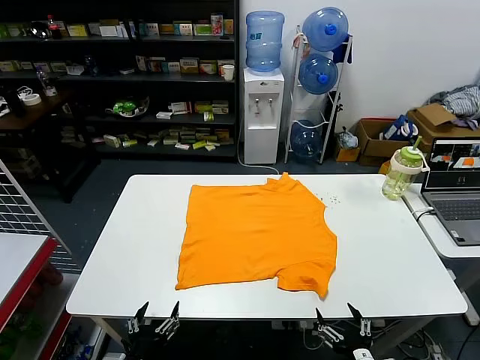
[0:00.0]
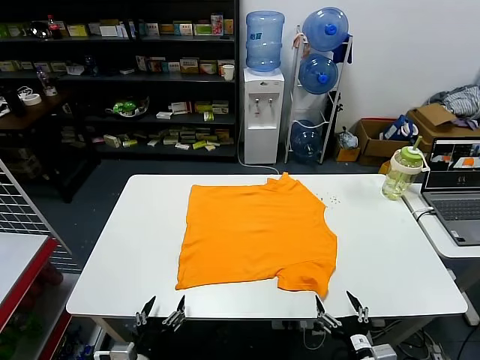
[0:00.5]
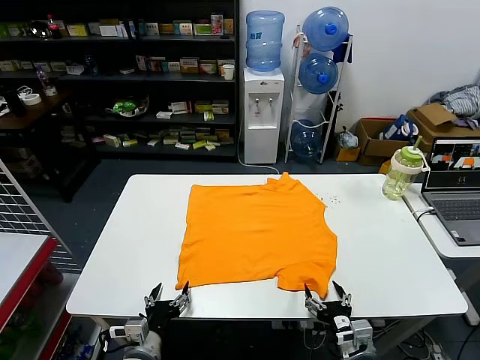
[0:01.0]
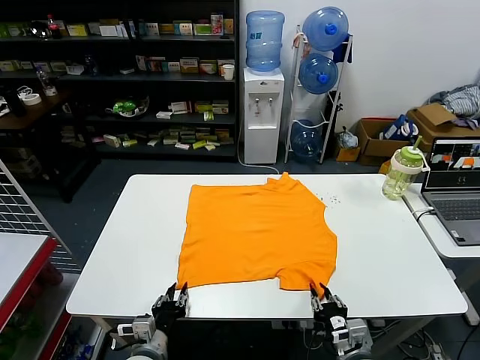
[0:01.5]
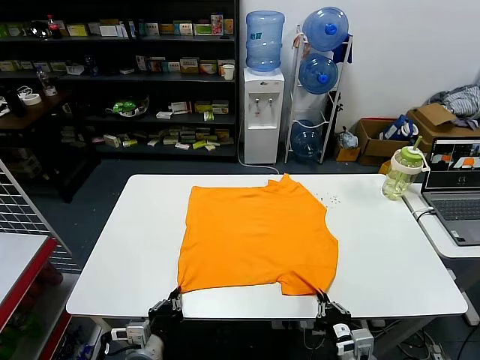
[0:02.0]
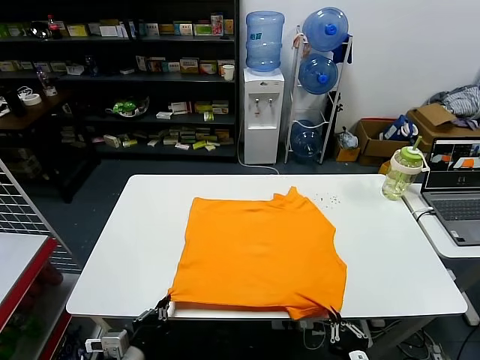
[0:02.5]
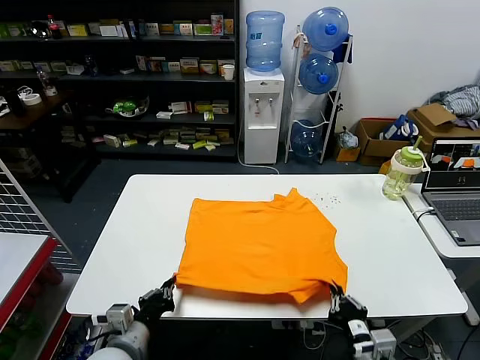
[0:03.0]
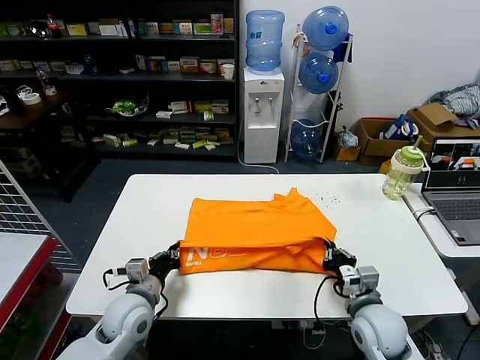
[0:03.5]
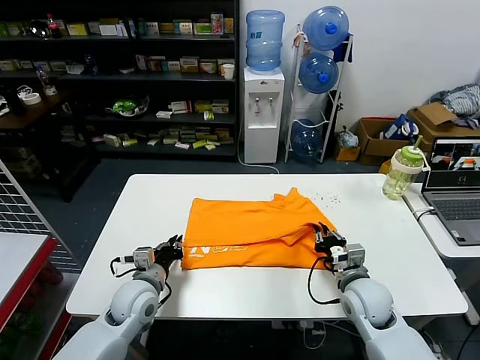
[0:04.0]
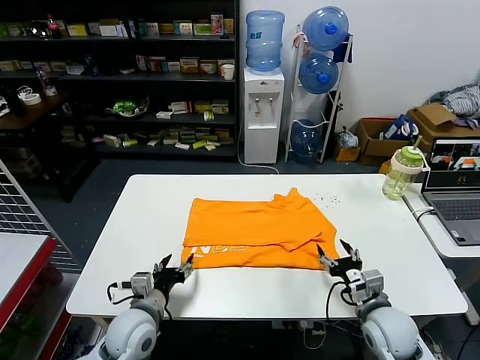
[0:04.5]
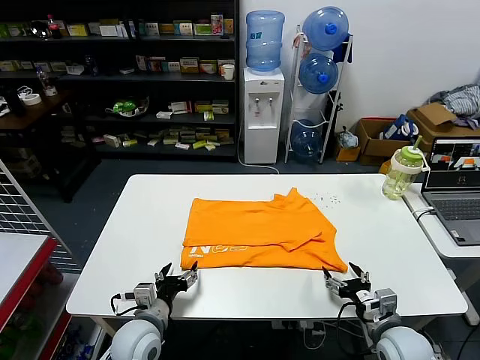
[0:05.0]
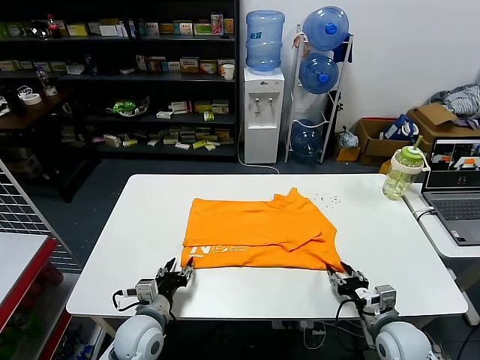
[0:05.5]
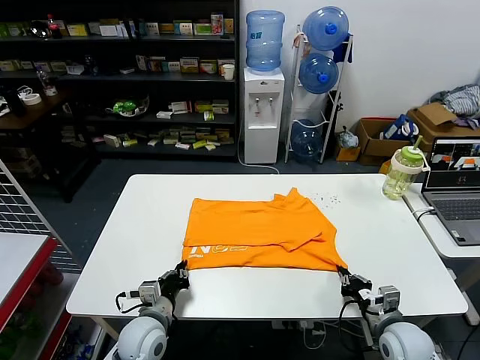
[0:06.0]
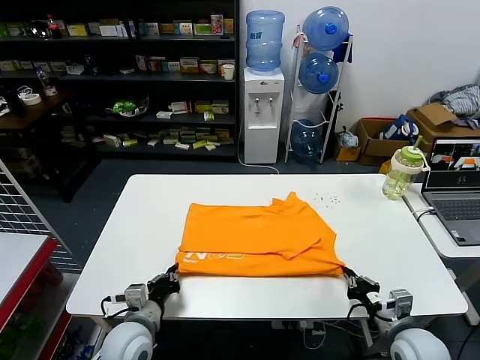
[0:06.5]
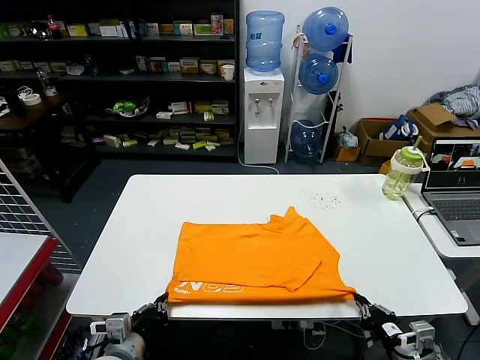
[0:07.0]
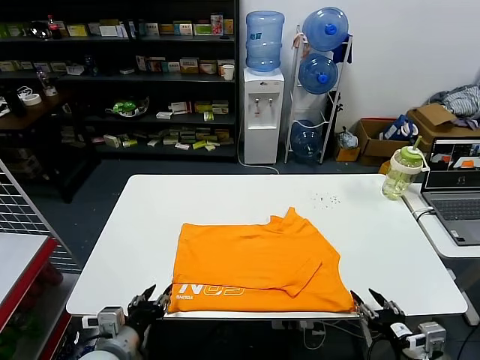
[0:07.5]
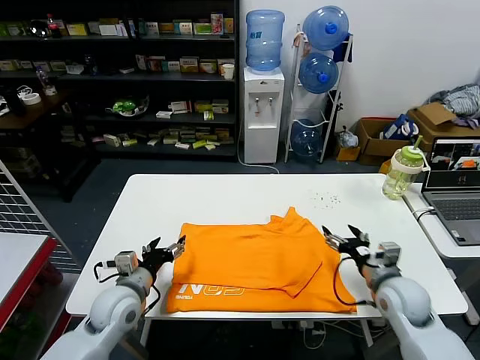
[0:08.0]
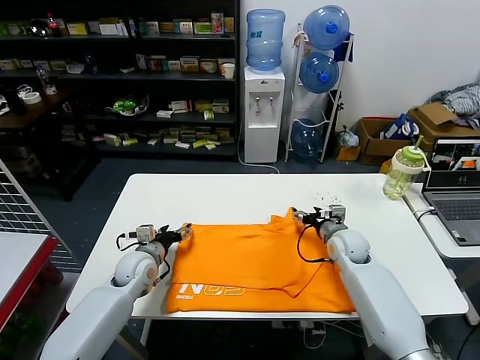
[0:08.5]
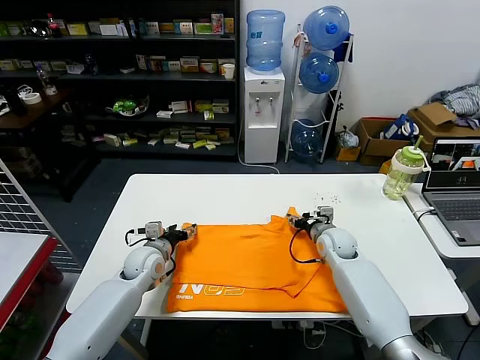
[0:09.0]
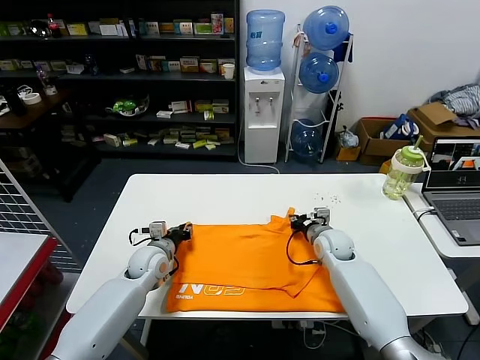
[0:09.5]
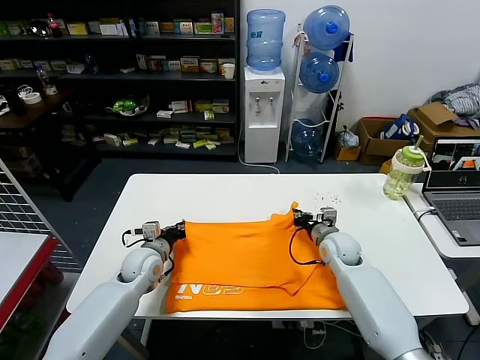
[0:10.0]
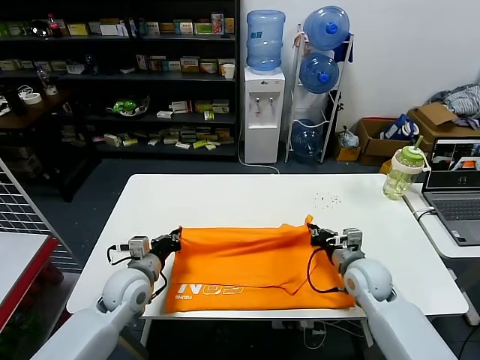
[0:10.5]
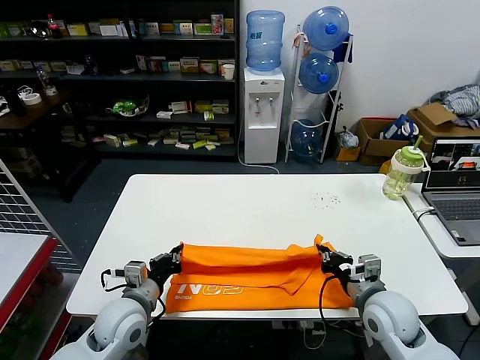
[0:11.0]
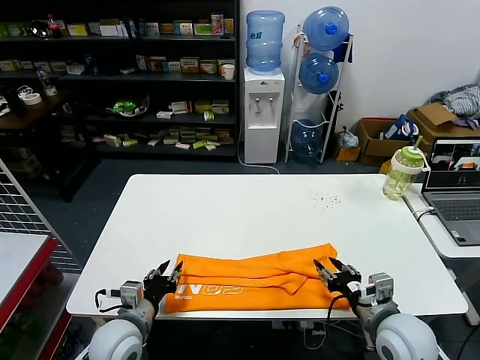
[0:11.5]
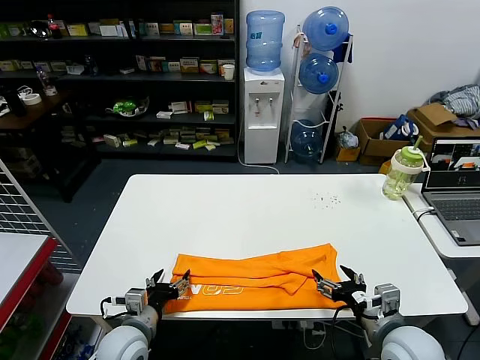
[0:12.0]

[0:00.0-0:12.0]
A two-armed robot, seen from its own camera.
Task of the whole recording: fold and organize the clothes.
Step, 0:00.0 to 0:01.5: use both grippers simultaneously to clamp the lower edge of the clothing fabric.
Step, 0:02.0 to 0:04.0: use both grippers to drag the lower edge of the fabric forward and fold it over the upper edge.
Step, 0:04.5 to 0:07.0: Drag the clothes downward with both gripper.
Step, 0:07.5 to 0:09.5: use both grippers simultaneously to clamp the upper edge of the clothing fabric.
Step, 0:10.0 to 0:11.0: use both grippers to drag the upper edge of the fabric backward and fold it over the lower edge.
0:02.0 to 0:04.0: The two grippers go approximately 15 cm forward.
0:04.0 to 0:06.0: The left gripper shifts some 5 cm backward, and opens and closes again, while the right gripper is displaced to the right, backward and downward by about 10 cm, and opens, then closes once more.
0:06.0 to 0:08.0: The left gripper heads upward, covering about 5 cm, goes backward and returns, approximately 10 cm each way, and opens up. The right gripper shifts some 10 cm forward and upward, and opens up.
0:08.0 to 0:10.0: The left gripper heads forward, covering about 10 cm, and closes its fingers, while the right gripper travels forward and to the left by approximately 15 cm, and closes up.
0:10.0 to 0:12.0: The two grippers go approximately 20 cm backward. The right gripper opens its fingers. Meanwhile the left gripper opens.

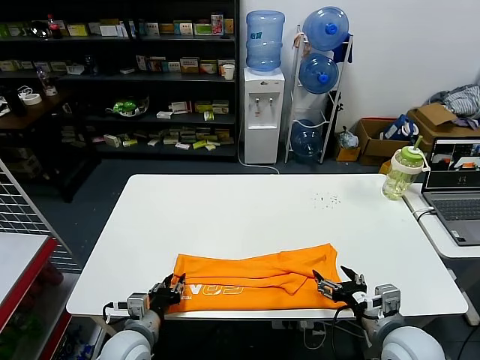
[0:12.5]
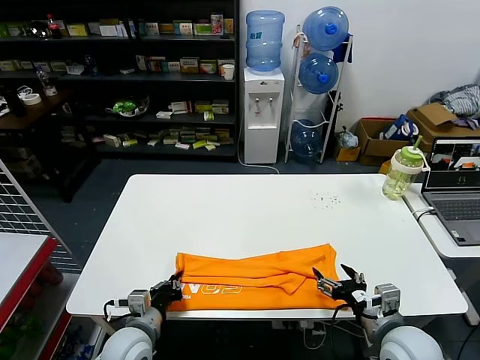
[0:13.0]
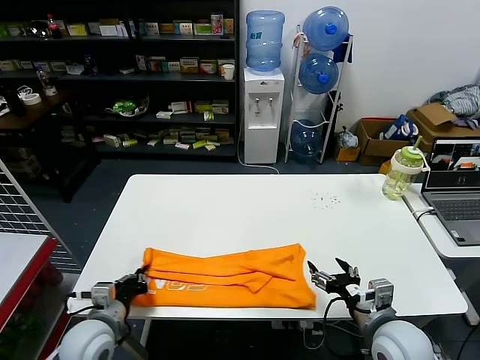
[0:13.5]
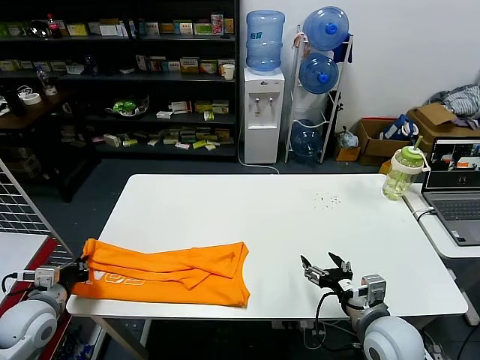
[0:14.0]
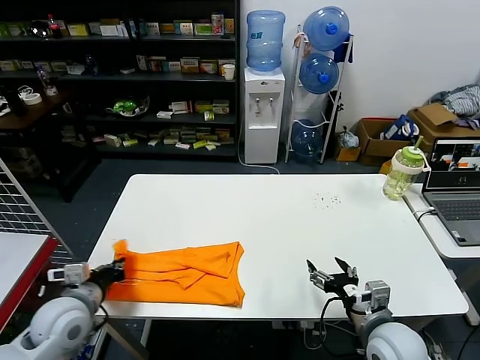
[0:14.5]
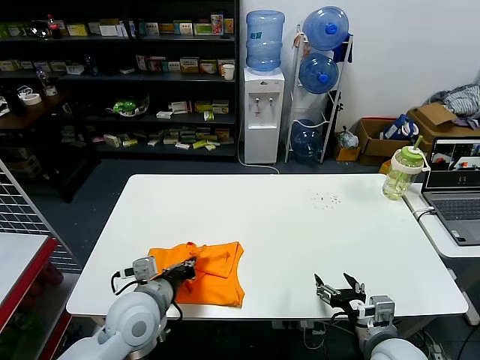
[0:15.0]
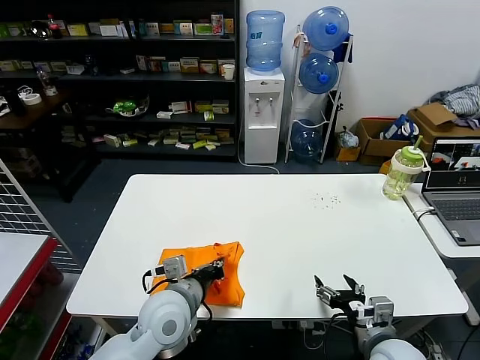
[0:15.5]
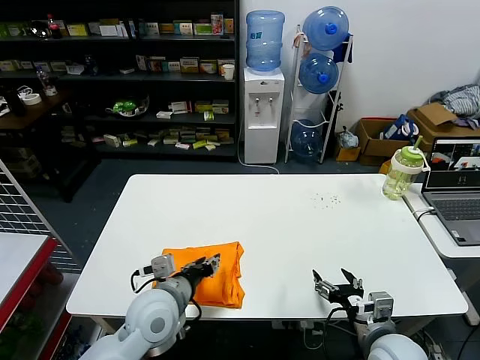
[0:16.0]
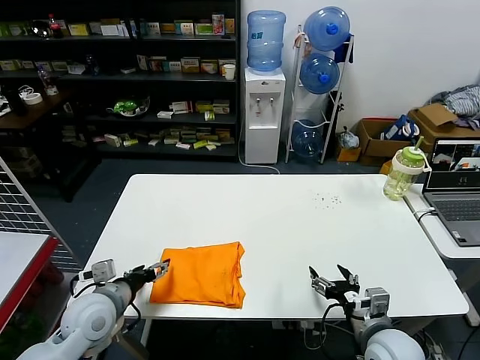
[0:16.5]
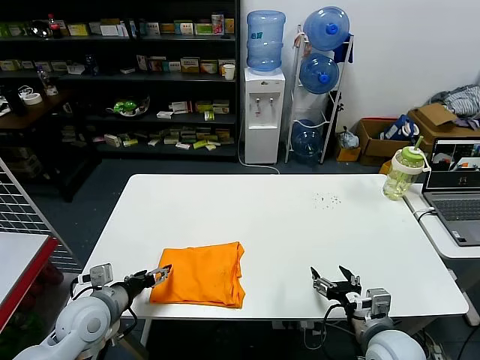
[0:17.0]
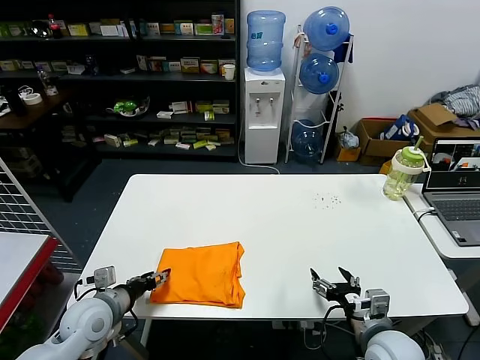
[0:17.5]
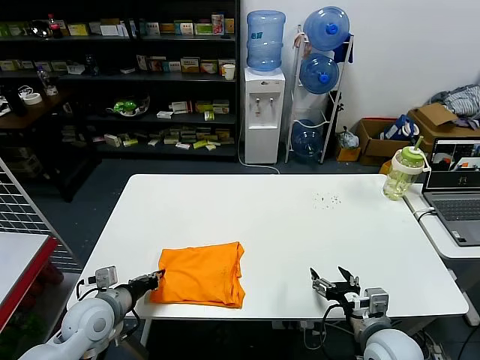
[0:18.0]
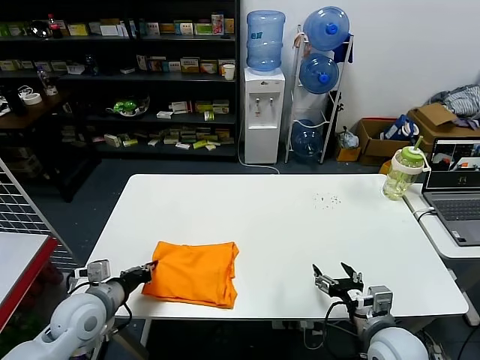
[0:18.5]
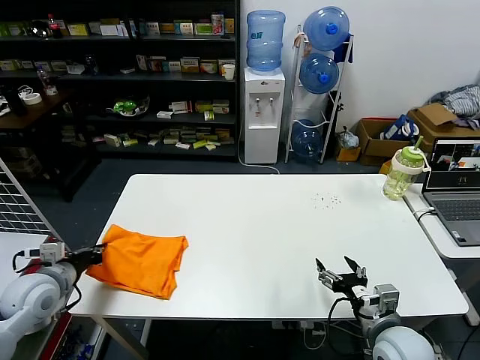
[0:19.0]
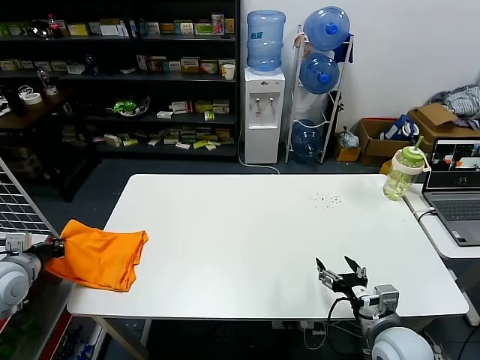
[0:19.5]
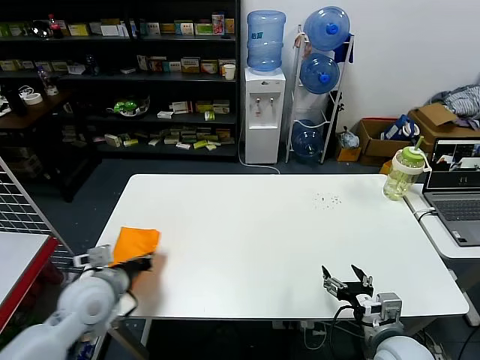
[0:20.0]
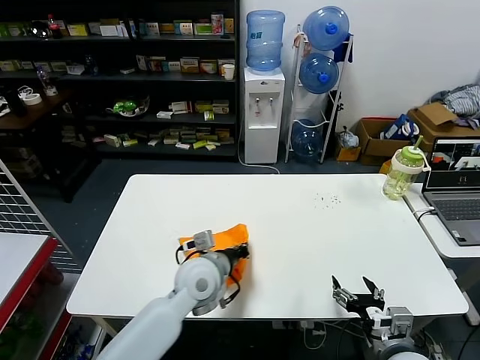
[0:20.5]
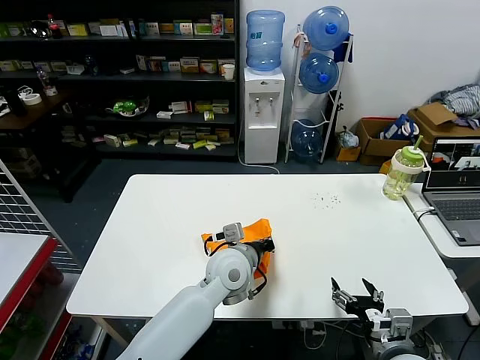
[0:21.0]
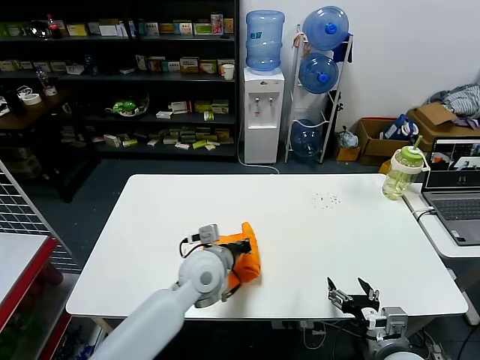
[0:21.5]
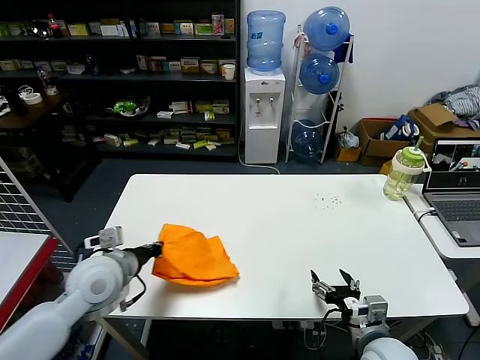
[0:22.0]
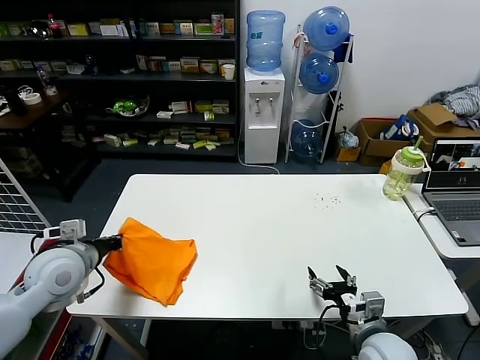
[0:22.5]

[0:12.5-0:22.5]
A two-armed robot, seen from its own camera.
Task of the whole recording: fold and organize the clothes.
Step, 0:13.0 to 0:15.5: use the left gripper to drag the left edge of the fabric to the left and folds it over the right edge.
0:12.5 to 0:14.5: The left gripper is displaced to the left and upward by about 15 cm, and closes.
0:14.5 to 0:16.5: The left gripper reaches roughly 20 cm to the right, then returns, and opens its fingers.
0:16.5 to 0:18.5: The left gripper closes.
0:18.5 to 0:20.5: The left gripper is displaced to the right by roughly 20 cm.
0:20.5 to 0:22.5: The left gripper is displaced to the left by about 25 cm.

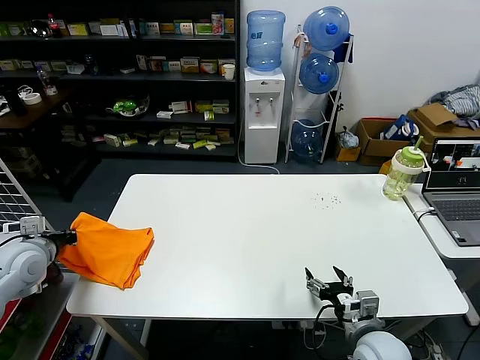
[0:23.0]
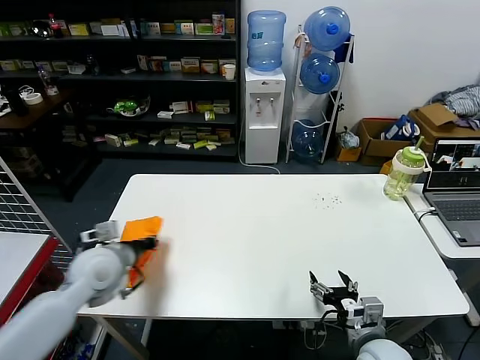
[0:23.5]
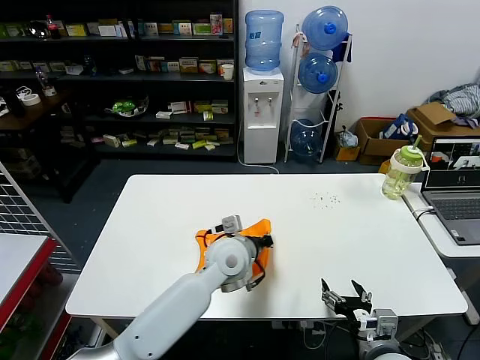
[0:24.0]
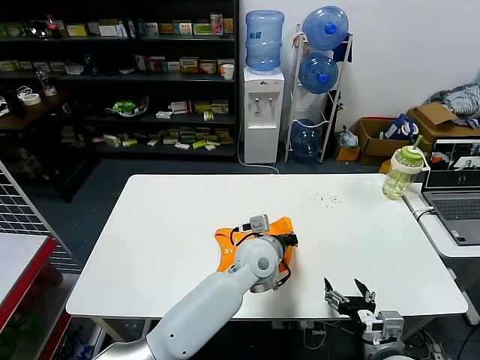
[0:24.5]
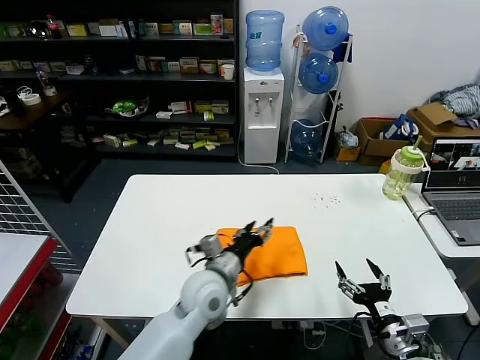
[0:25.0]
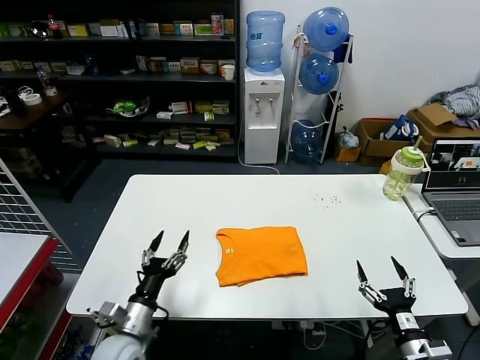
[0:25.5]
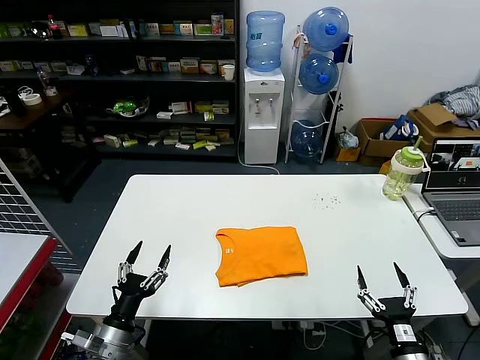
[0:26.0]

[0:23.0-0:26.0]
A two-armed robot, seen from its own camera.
Task of the whole recording: fold and organize the clothes.
0:23.0 to 0:24.5: The left gripper goes approximately 50 cm to the right.
0:24.5 to 0:26.0: The right gripper moves to the right, approximately 5 cm, while the left gripper is displaced to the left and backward by about 40 cm, and opens up.
